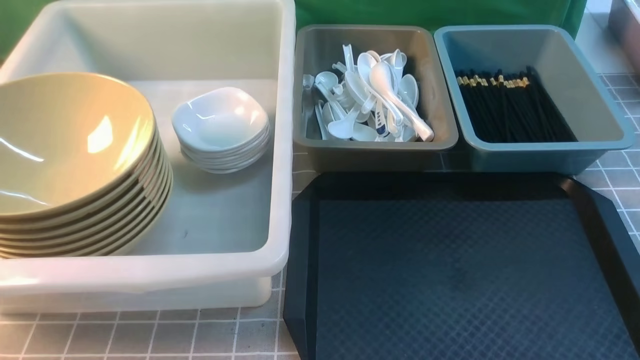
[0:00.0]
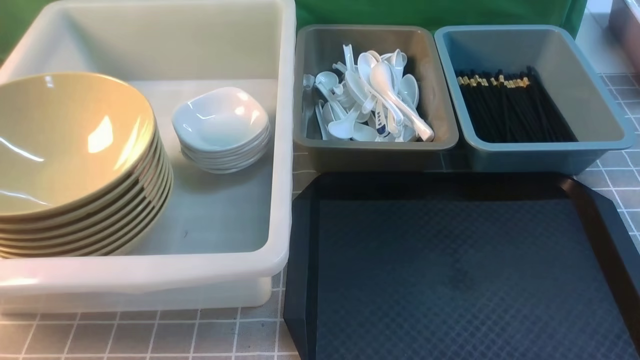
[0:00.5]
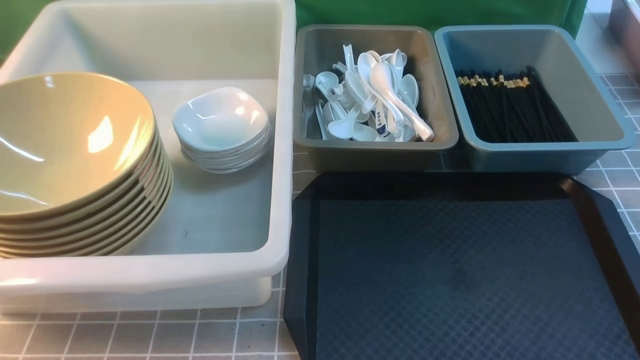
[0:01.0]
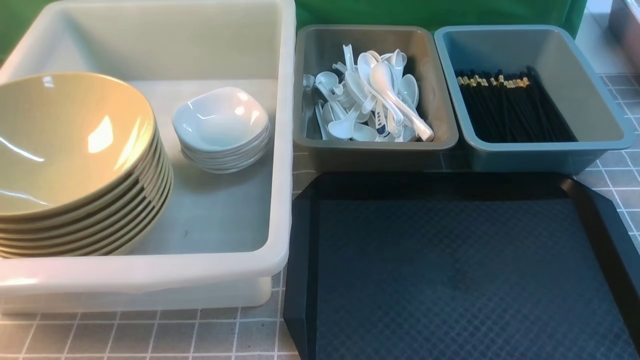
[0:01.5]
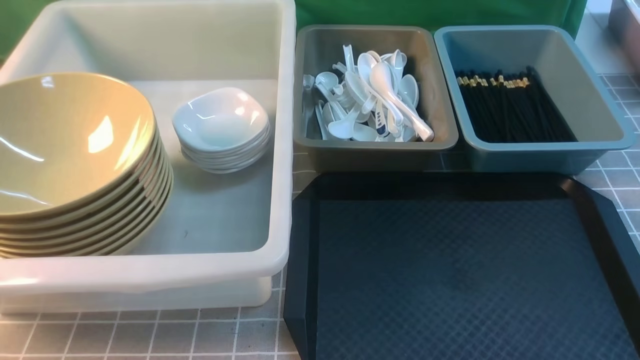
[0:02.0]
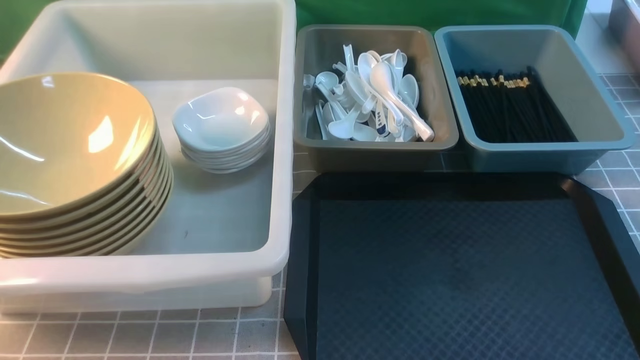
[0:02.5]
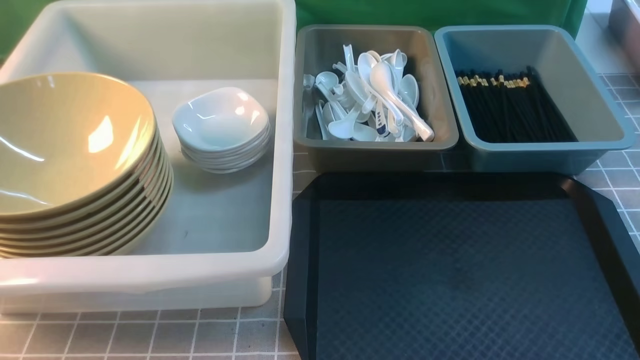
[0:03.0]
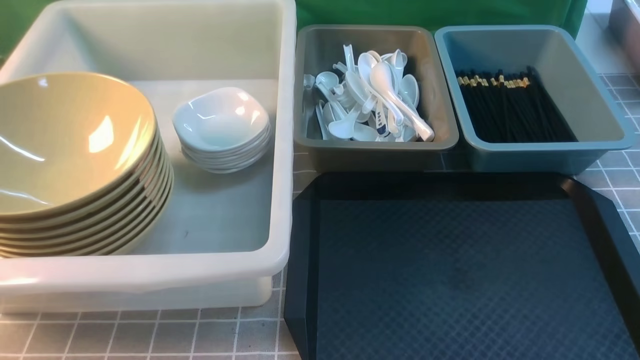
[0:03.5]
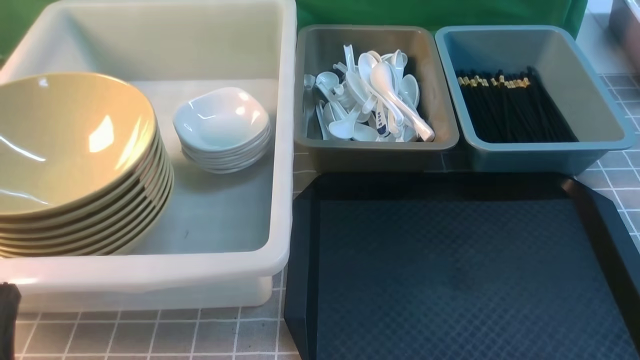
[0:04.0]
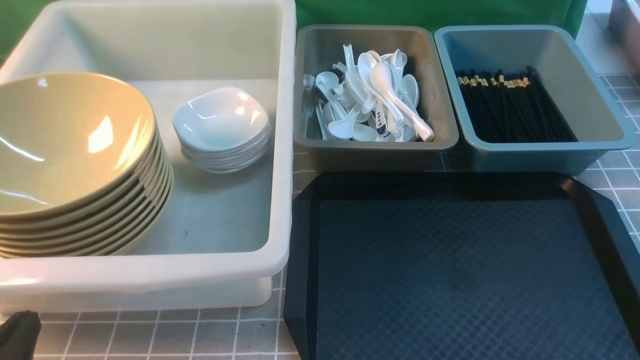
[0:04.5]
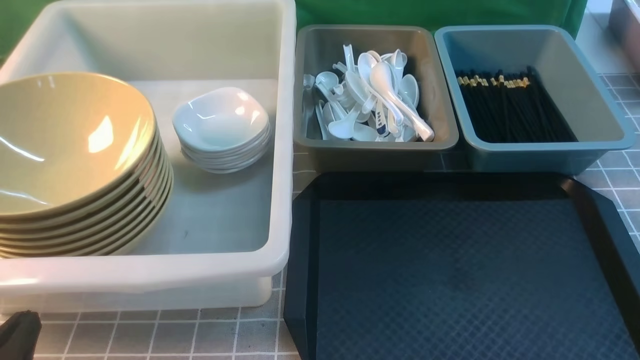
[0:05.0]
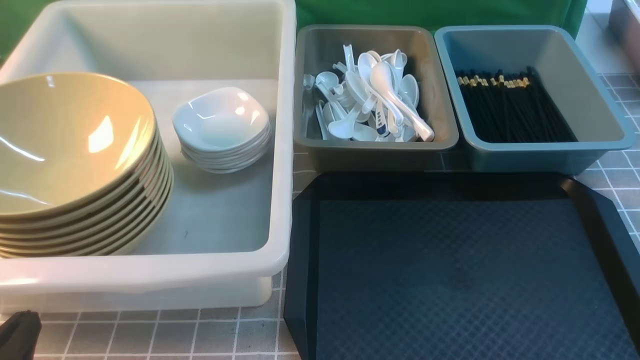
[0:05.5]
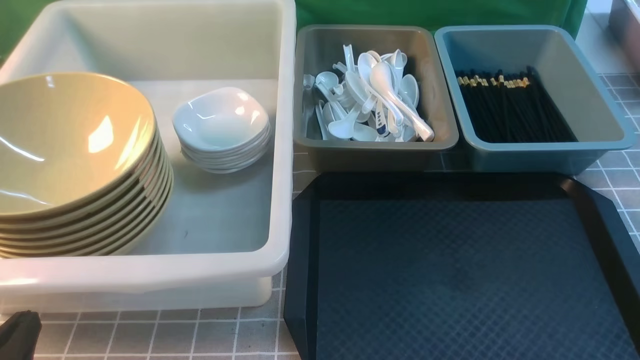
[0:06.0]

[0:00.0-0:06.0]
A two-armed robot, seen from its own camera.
Task of the whole recording: on grey table put chopsticks spoon bowls plates into blue grey white boxes.
0:02.0 to 0:04.0: The left gripper heads downward and forward, covering approximately 10 cm.
